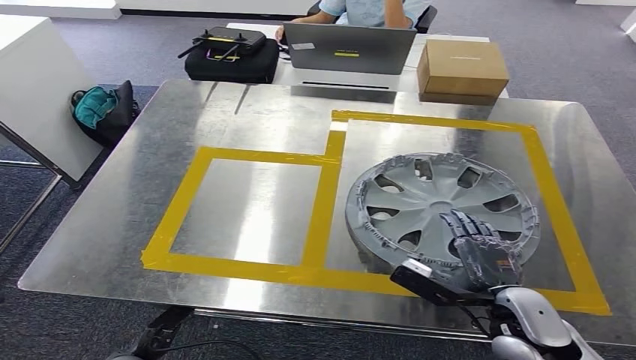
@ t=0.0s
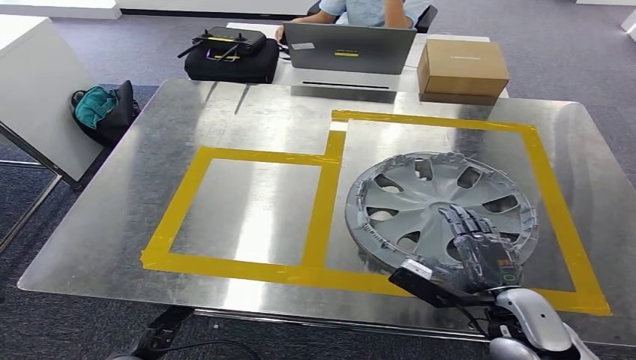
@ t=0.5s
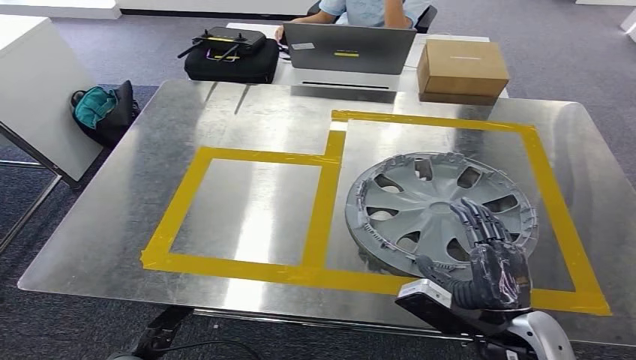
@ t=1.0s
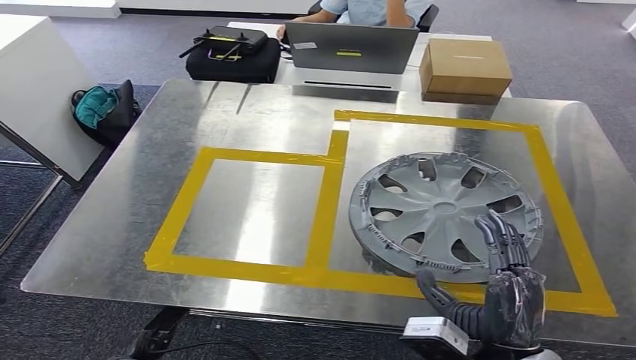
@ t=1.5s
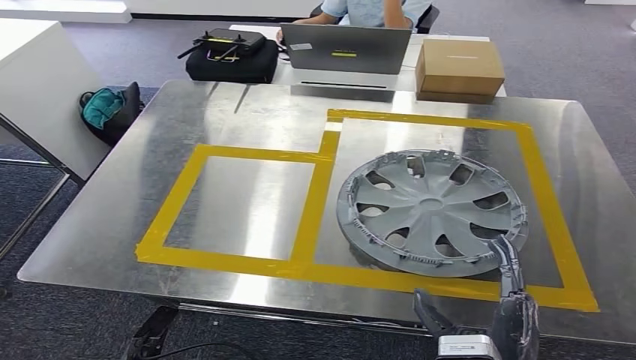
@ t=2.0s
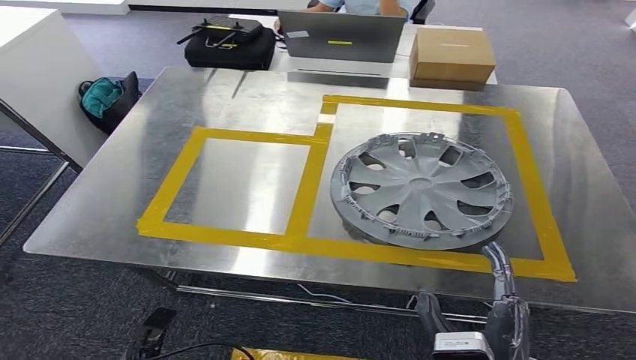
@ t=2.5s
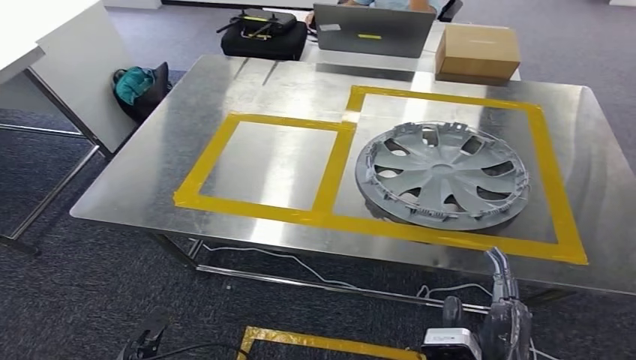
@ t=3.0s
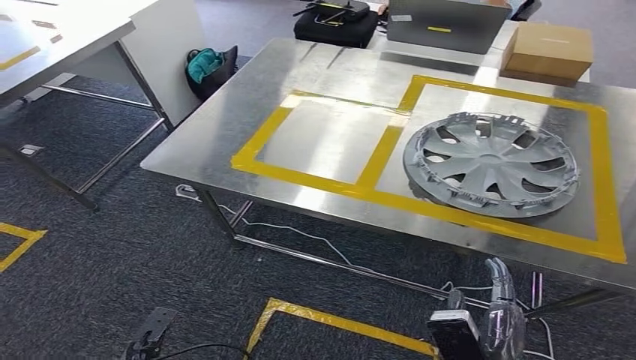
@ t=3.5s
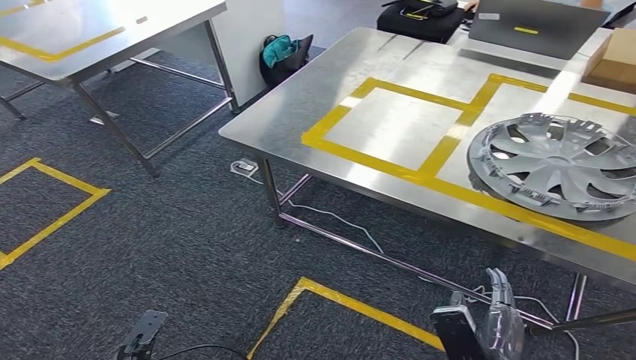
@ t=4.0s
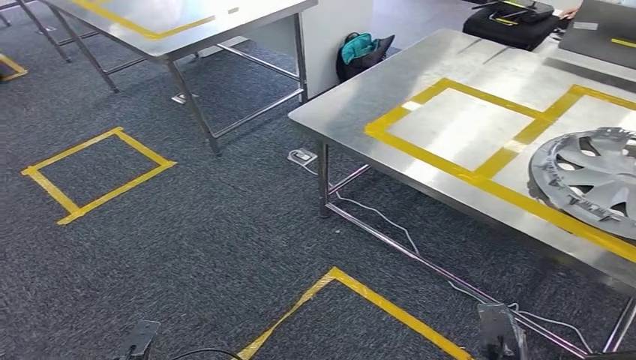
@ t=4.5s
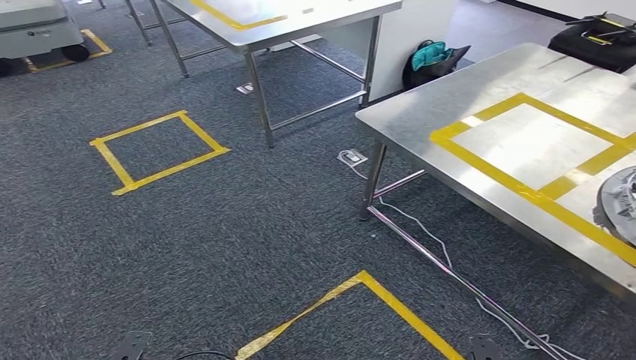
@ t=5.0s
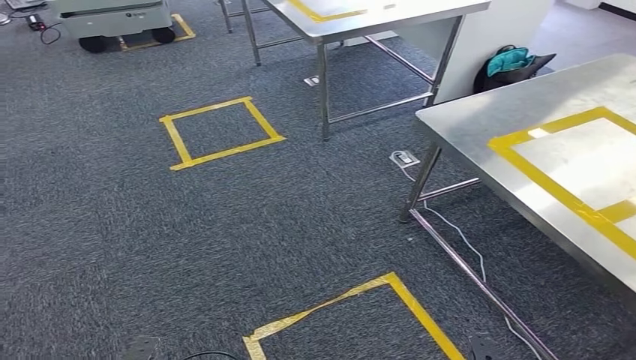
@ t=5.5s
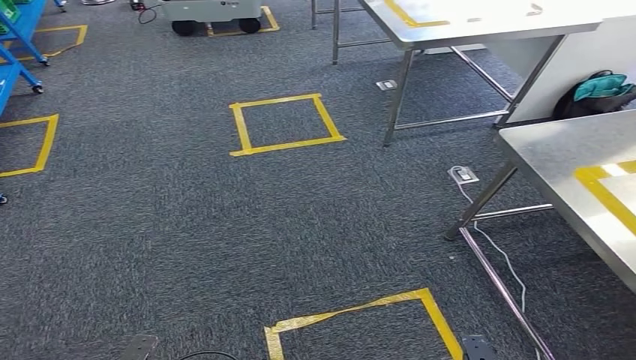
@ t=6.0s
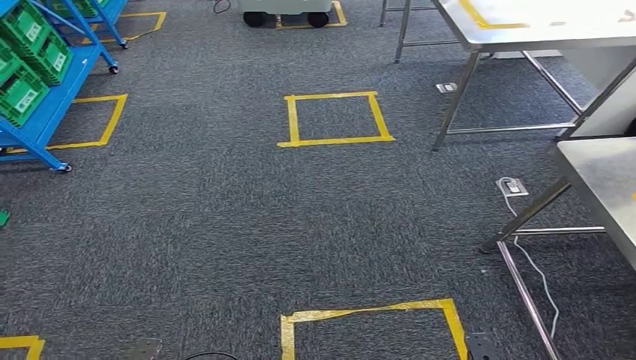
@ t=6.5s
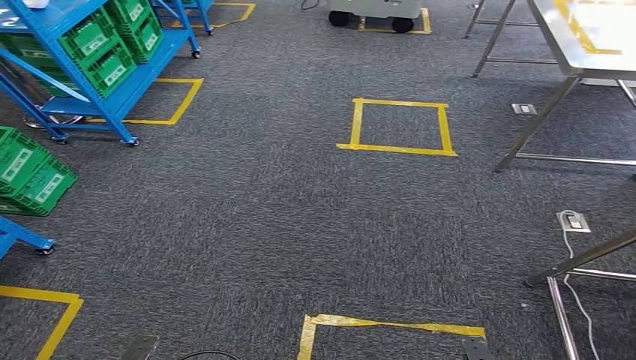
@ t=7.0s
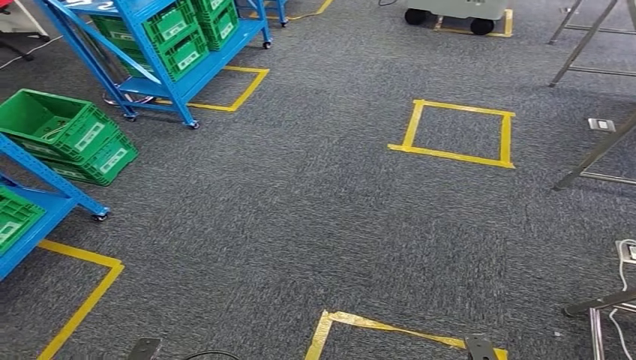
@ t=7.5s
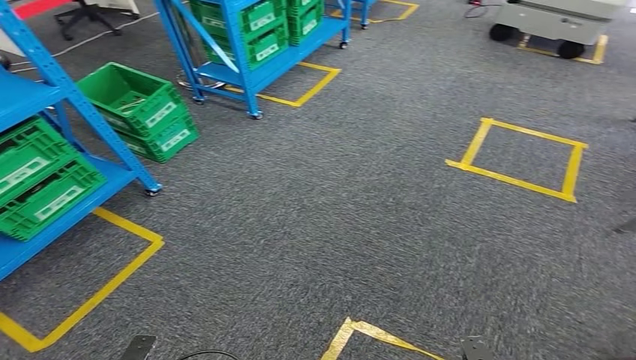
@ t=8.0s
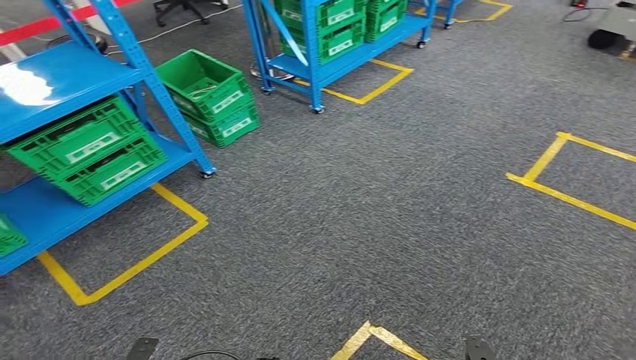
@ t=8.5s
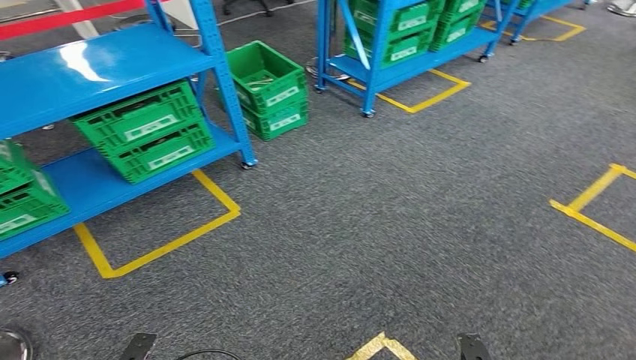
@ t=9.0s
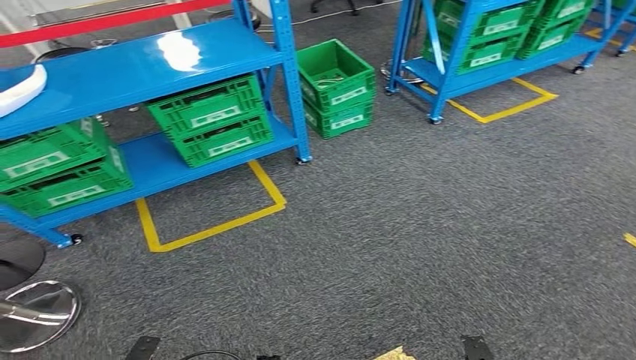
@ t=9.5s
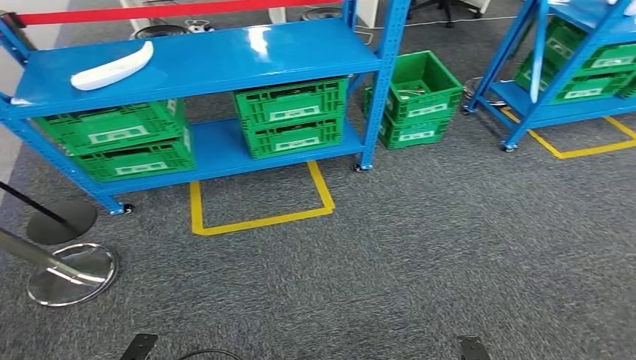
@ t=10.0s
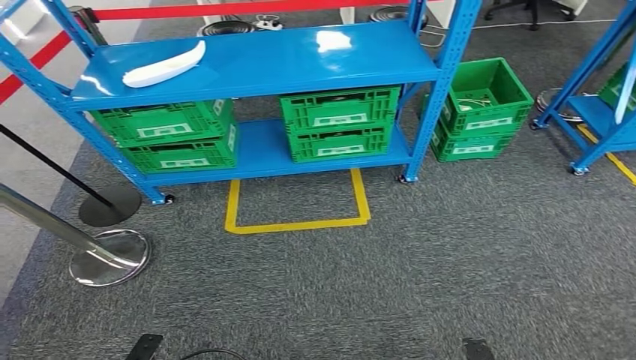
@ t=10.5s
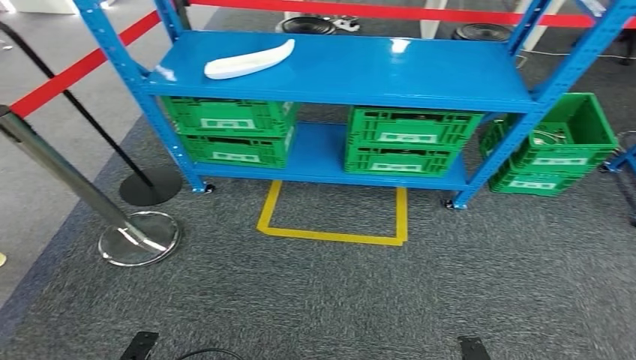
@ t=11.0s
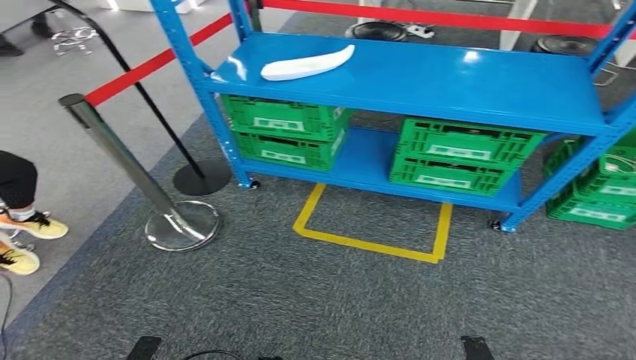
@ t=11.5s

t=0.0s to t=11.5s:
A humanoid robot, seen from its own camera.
Step, t=0.0s to t=2.0s: Insert the small parts into the corresponding slots on the workbench.
Step, t=2.5s to t=11.5s: Return to the initial position at the workbench.
